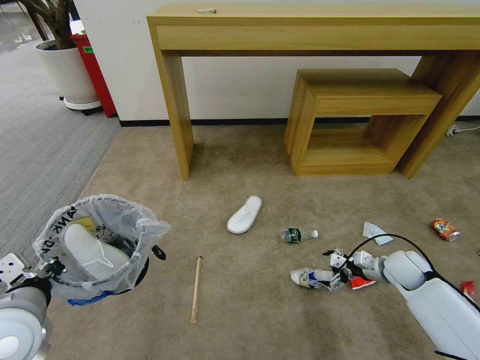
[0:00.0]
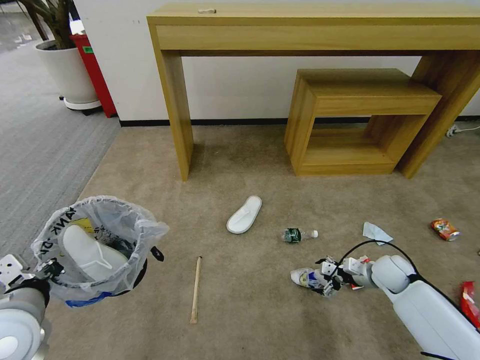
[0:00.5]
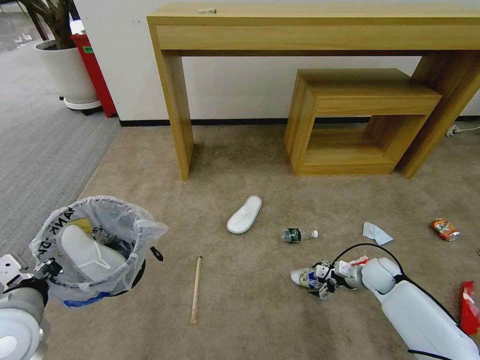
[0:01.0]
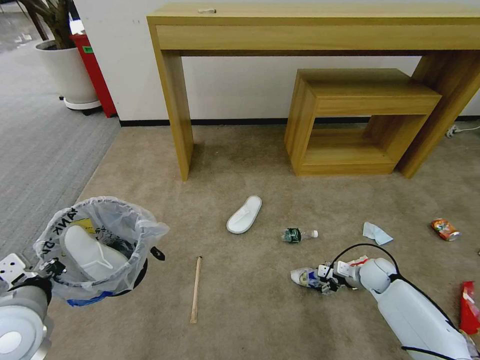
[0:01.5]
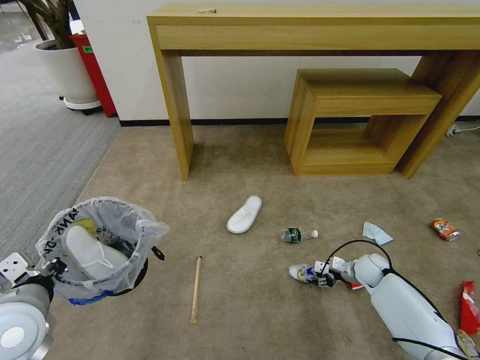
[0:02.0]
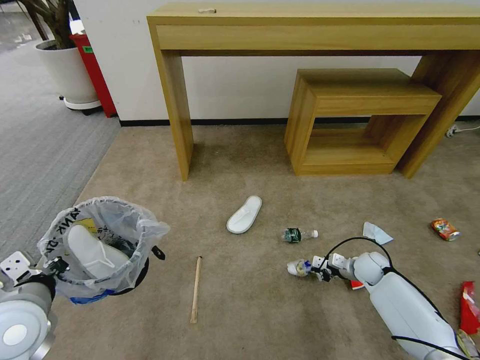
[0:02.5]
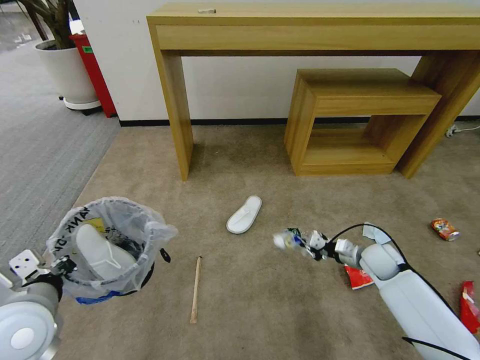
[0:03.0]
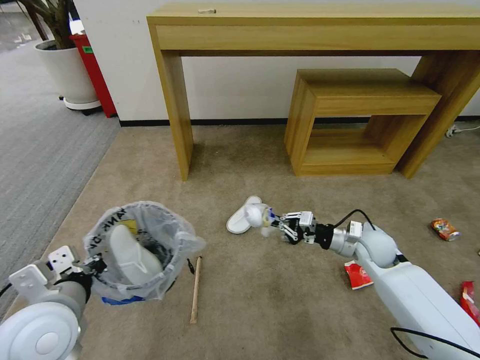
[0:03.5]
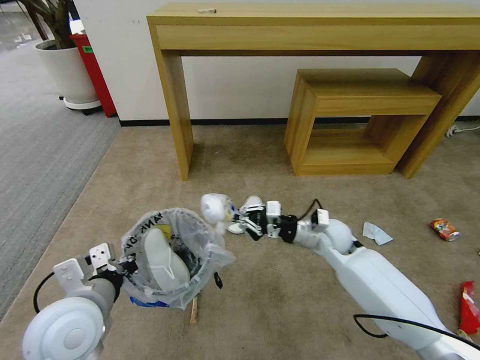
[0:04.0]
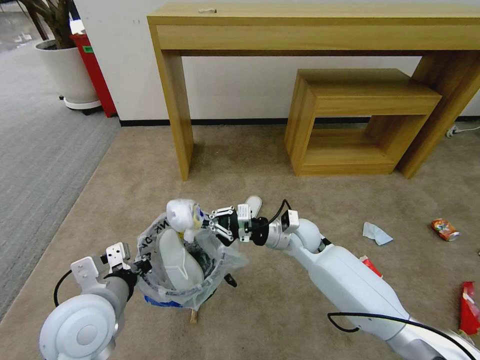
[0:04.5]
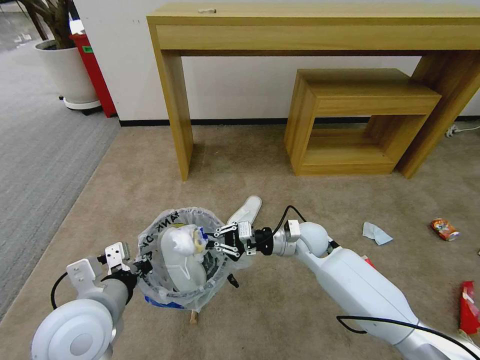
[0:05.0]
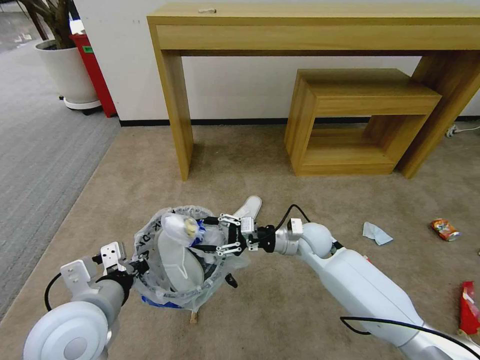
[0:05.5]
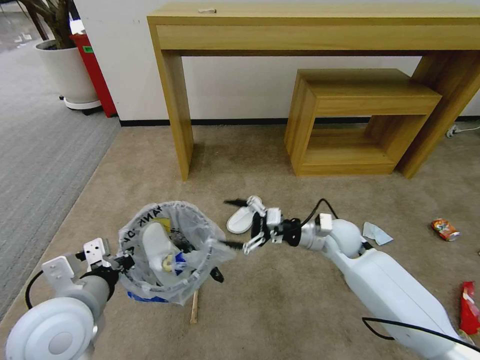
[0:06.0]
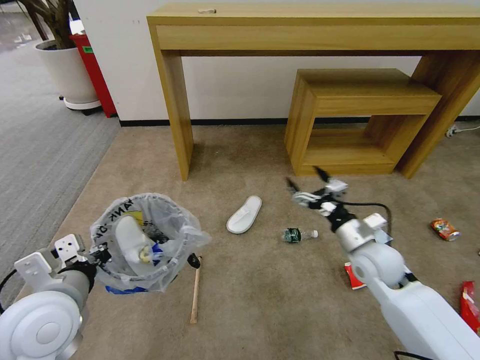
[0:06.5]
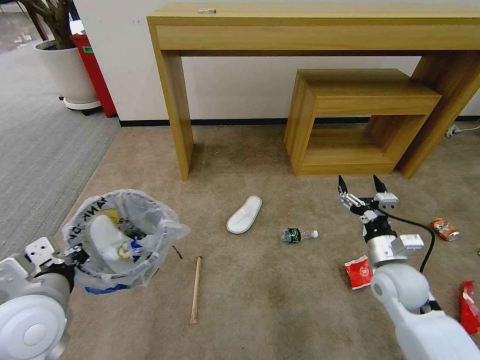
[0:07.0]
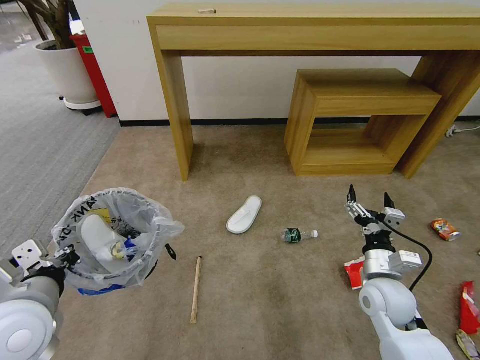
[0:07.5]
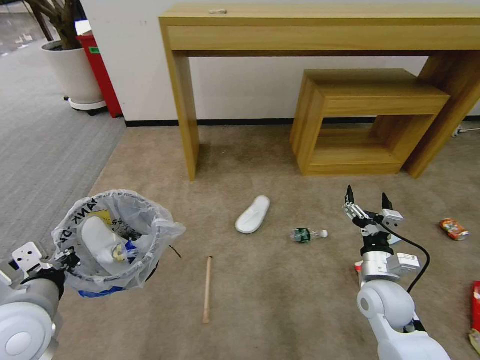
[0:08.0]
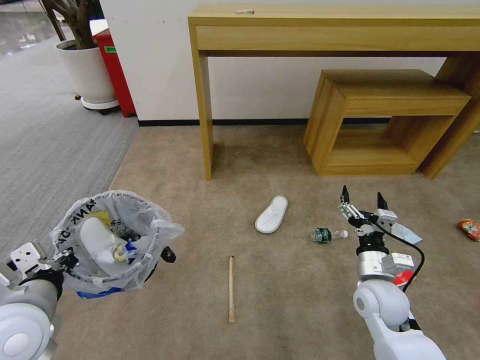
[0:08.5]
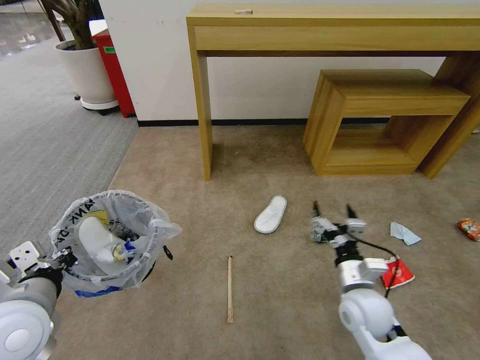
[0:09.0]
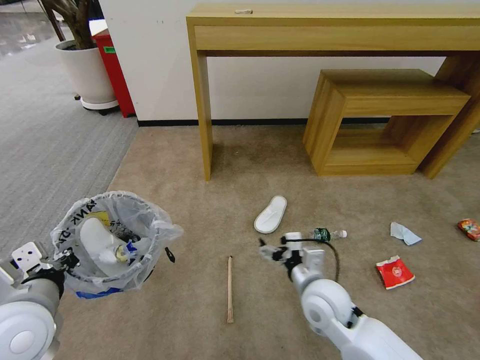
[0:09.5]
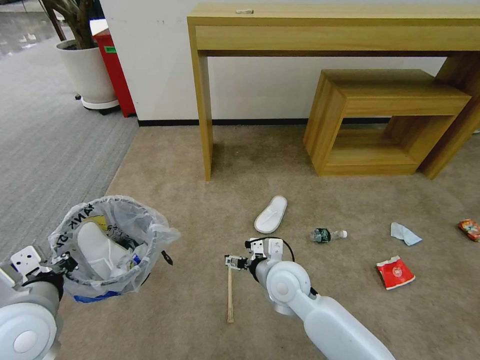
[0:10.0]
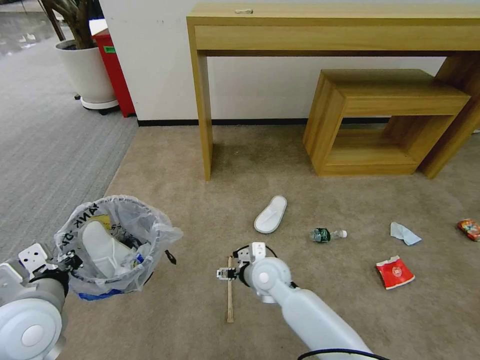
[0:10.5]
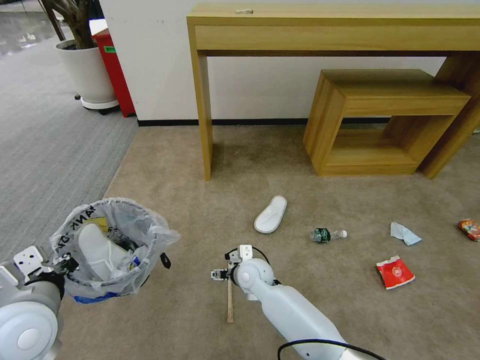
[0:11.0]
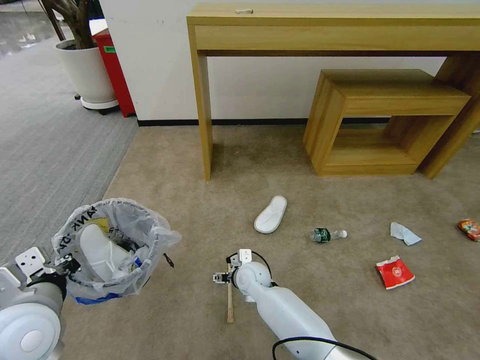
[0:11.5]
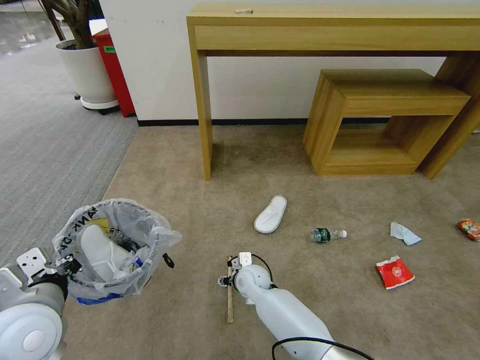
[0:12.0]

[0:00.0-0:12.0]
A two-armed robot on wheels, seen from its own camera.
Task of the whole recording: Pick up the trash bin and place the garbage on the floor into it.
0:00.0 to 0:02.0: The right gripper moves downward, approximately 10 cm, and closes.
0:02.0 to 0:04.0: The right gripper travels to the left and upward by roughly 25 cm, and closes its fingers. The left gripper is displaced to the right by some 10 cm.
0:04.0 to 0:06.0: The right gripper reaches some 5 cm to the left, then returns, and opens.
0:06.0 to 0:08.0: The right gripper heads backward and to the right, covering approximately 15 cm. Meanwhile the left gripper is displaced to the left by roughly 5 cm.
0:08.0 to 0:10.0: The right gripper shifts approximately 20 cm to the left.
0:10.0 to 0:12.0: The right gripper is displaced downward, forward and to the left by roughly 20 cm.

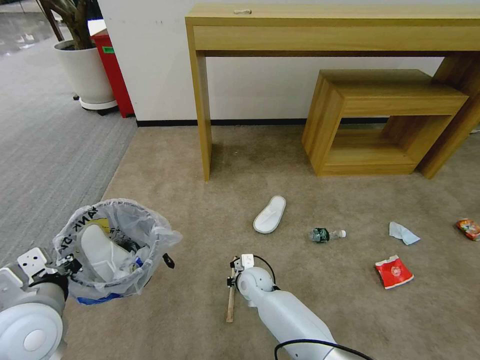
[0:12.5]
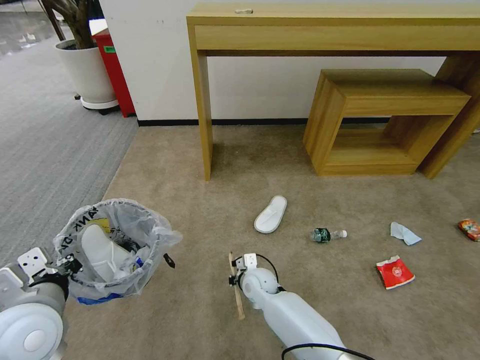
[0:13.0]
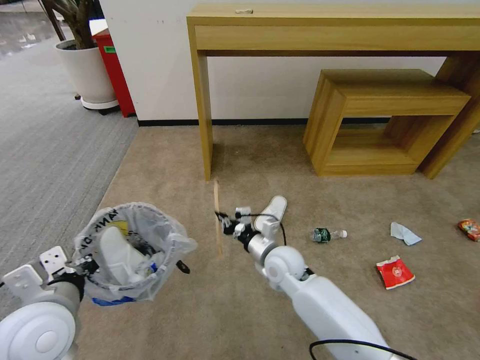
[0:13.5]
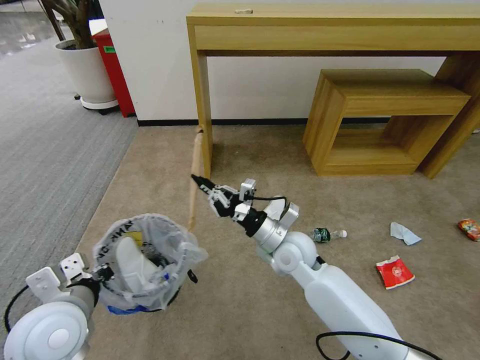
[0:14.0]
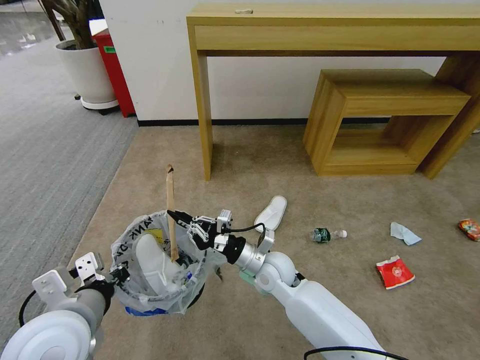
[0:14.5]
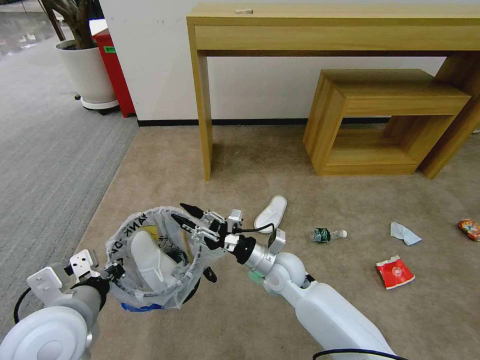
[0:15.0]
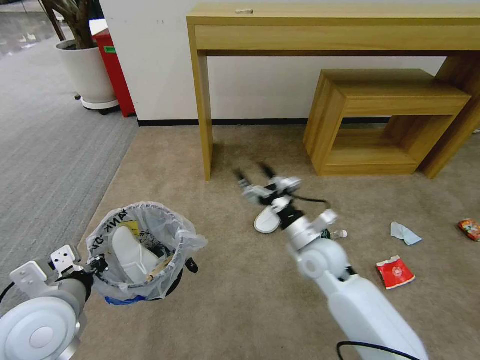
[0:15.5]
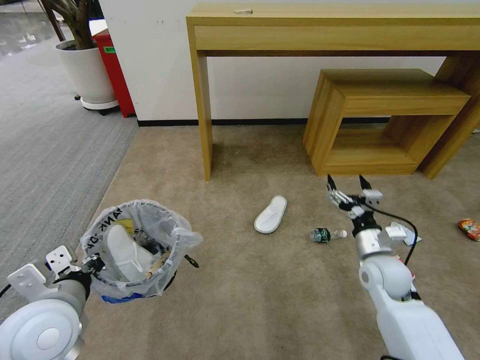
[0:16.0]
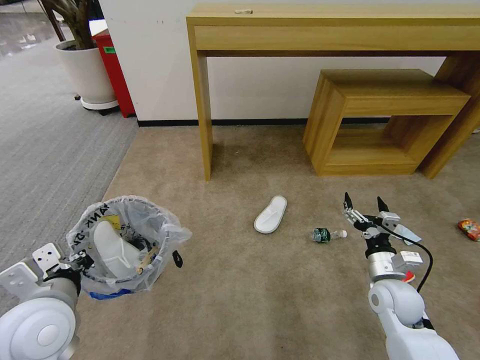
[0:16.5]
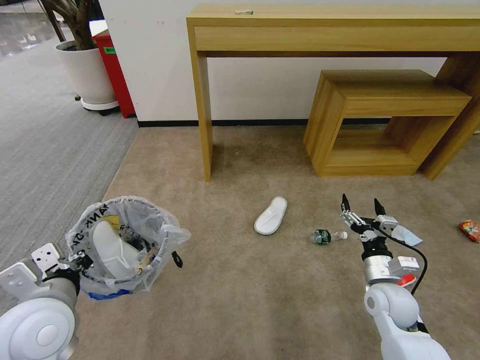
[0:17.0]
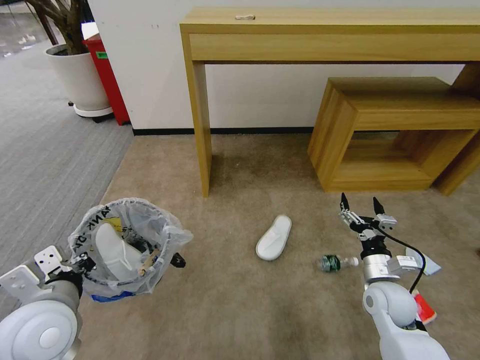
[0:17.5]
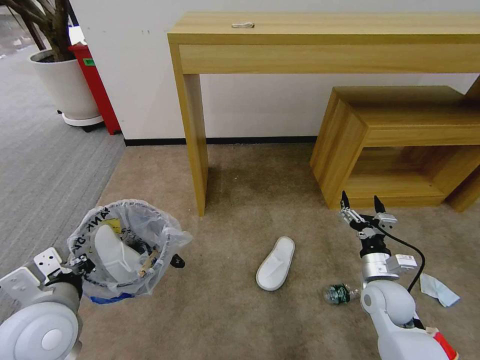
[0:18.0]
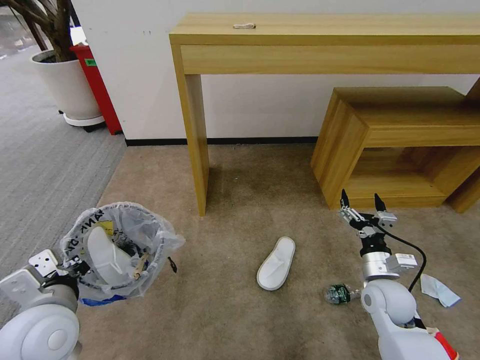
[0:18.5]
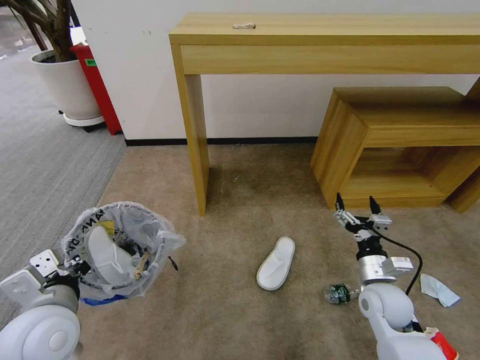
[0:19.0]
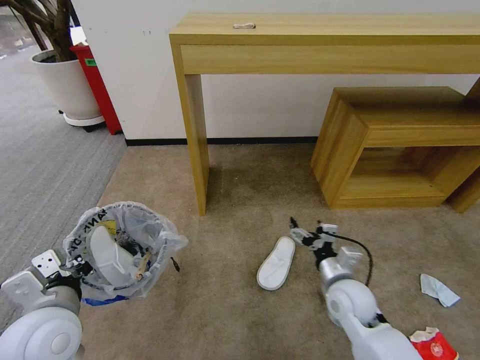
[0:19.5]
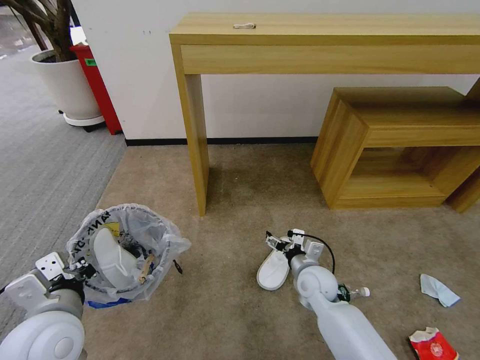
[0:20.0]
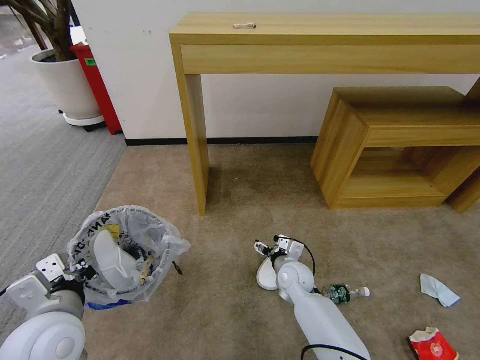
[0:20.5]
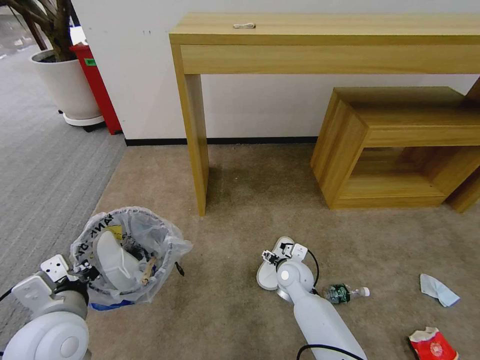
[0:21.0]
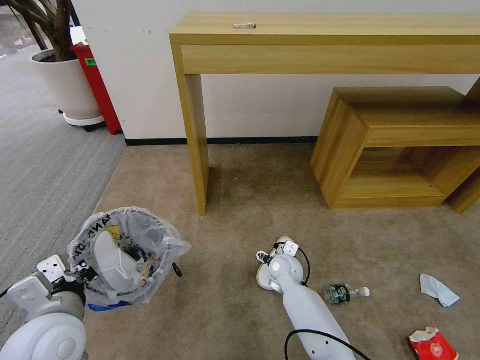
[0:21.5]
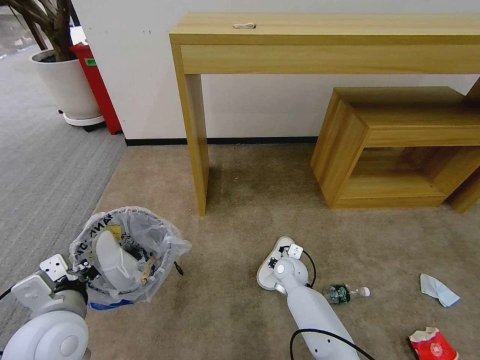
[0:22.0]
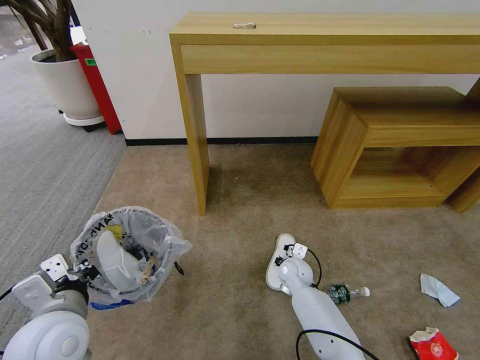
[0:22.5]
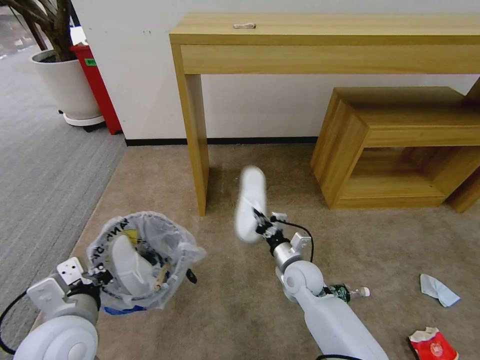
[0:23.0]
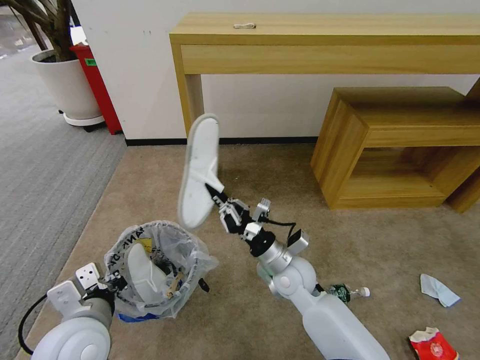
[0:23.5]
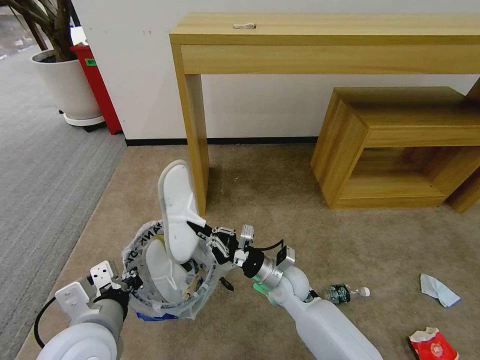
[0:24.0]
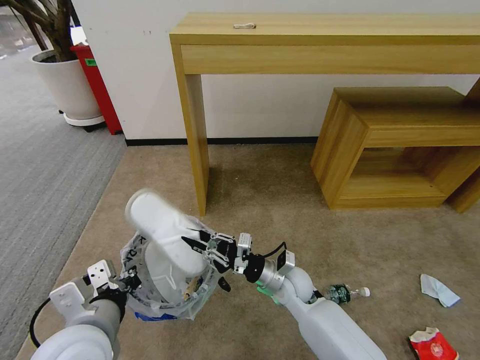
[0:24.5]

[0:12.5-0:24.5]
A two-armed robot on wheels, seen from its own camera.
Task of the whole recording: Pick up the trash bin and place the garbage on the floor into it.
0:12.5 to 0:14.5: The right gripper goes roughly 15 cm upward. Meanwhile the left gripper goes some 5 cm to the right.
0:14.5 to 0:16.5: The right gripper moves to the right, some 25 cm, and opens its fingers.
0:18.5 to 0:20.5: The right gripper moves to the left, forward and downward, approximately 20 cm.
0:20.5 to 0:22.5: The right gripper closes its fingers.
0:22.5 to 0:24.5: The left gripper goes roughly 5 cm to the right. Meanwhile the right gripper heads upward and backward, covering approximately 10 cm.

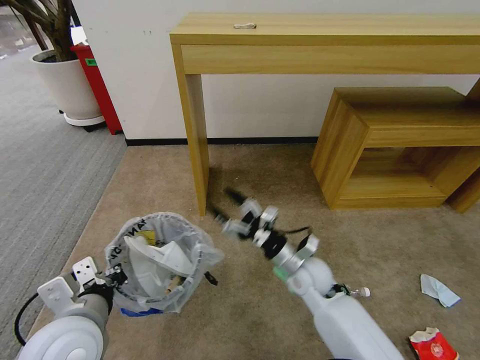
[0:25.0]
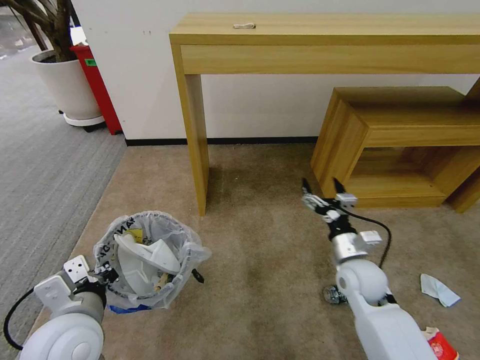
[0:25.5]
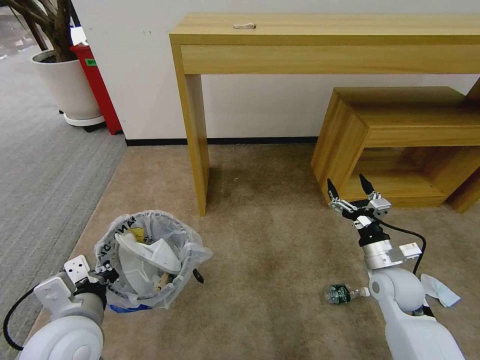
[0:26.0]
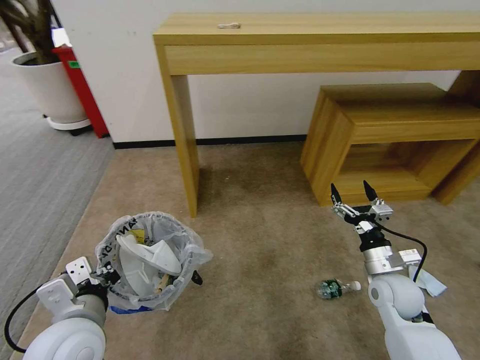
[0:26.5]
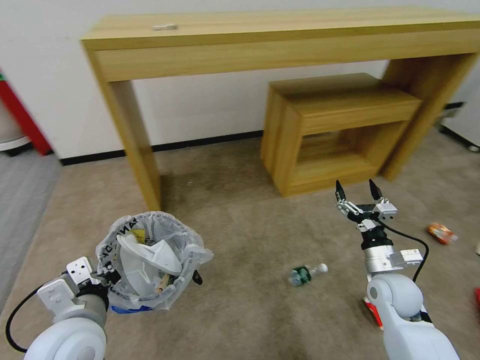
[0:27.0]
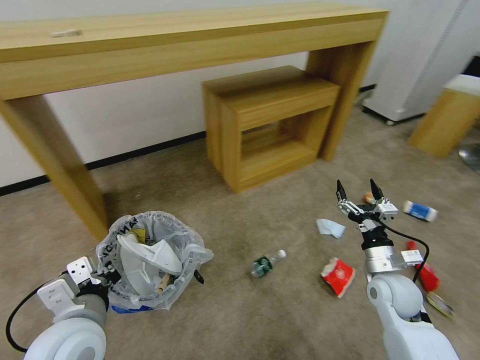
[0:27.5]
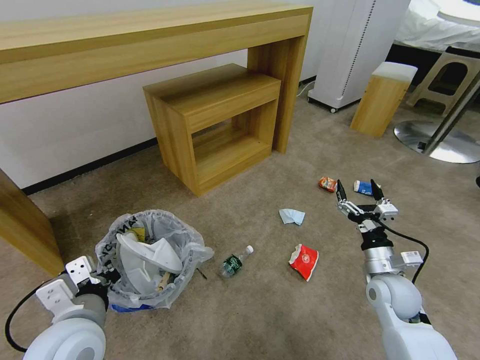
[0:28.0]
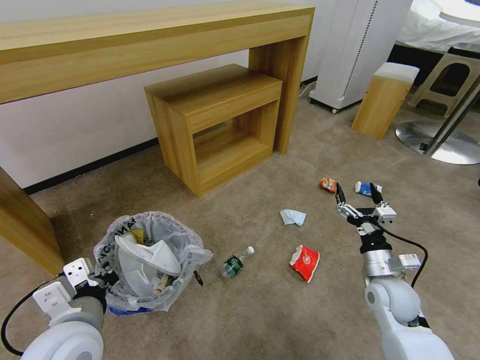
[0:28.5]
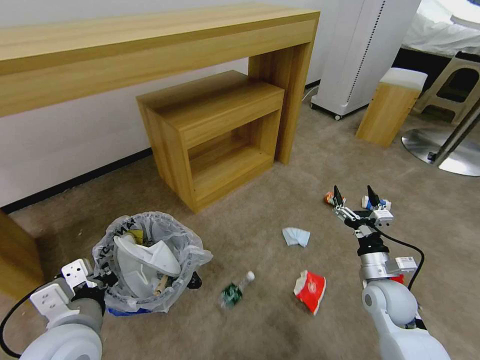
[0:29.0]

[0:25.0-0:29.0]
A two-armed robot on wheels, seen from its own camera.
Task of the whole recording: Pick up the trash bin and place the garbage on the floor into it.
0:25.0 to 0:27.0: The right gripper heads to the right, covering approximately 20 cm.
